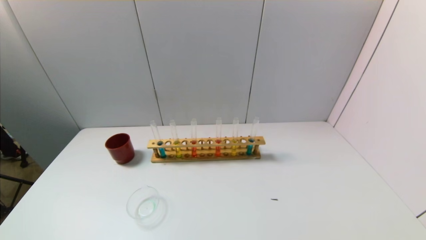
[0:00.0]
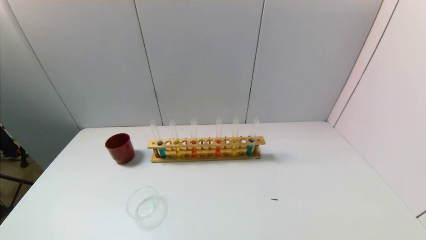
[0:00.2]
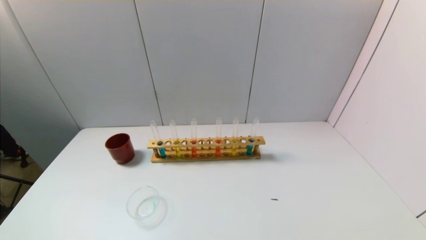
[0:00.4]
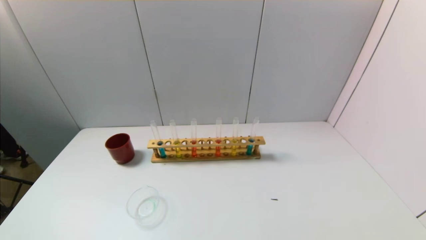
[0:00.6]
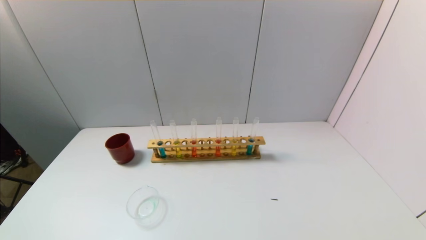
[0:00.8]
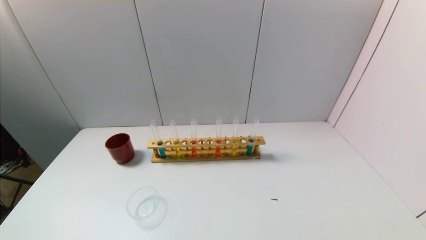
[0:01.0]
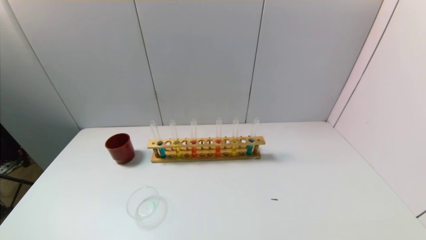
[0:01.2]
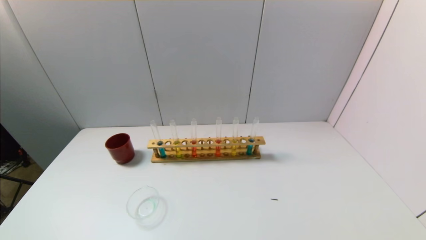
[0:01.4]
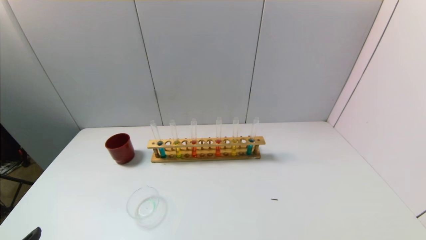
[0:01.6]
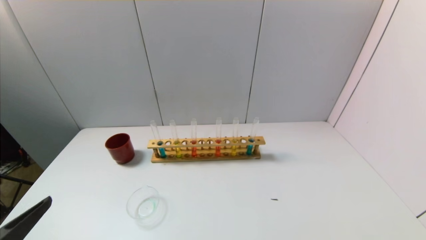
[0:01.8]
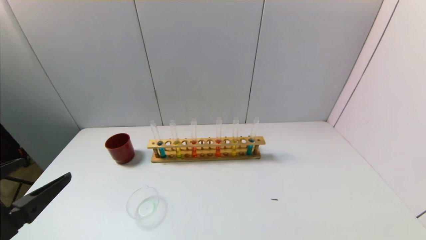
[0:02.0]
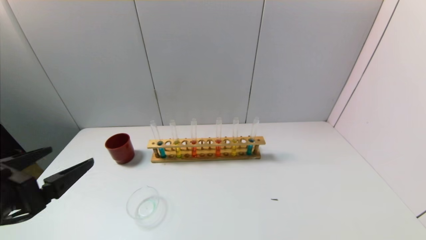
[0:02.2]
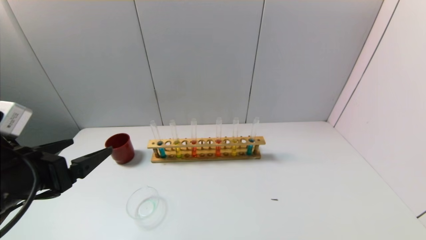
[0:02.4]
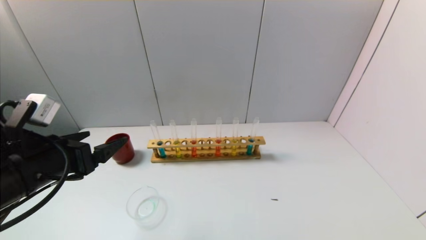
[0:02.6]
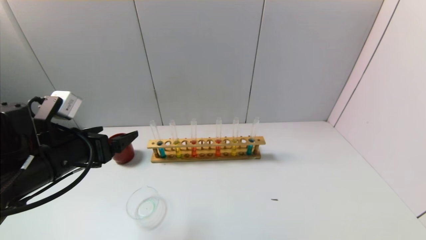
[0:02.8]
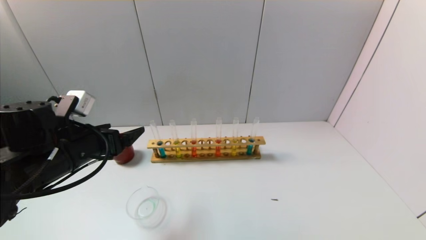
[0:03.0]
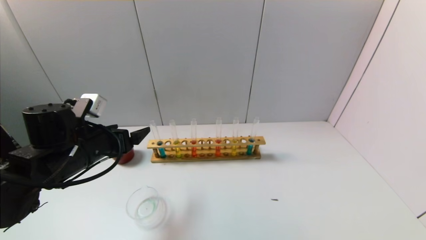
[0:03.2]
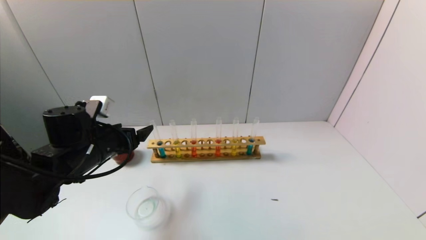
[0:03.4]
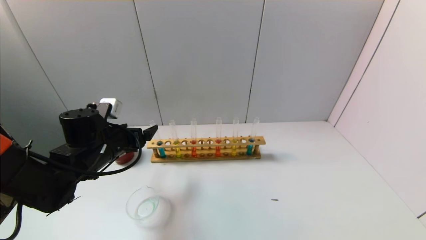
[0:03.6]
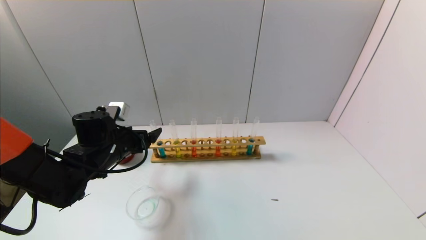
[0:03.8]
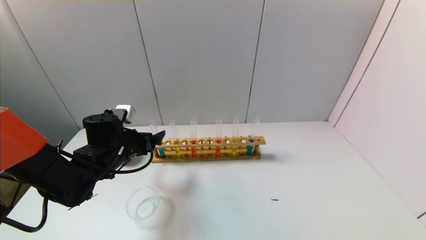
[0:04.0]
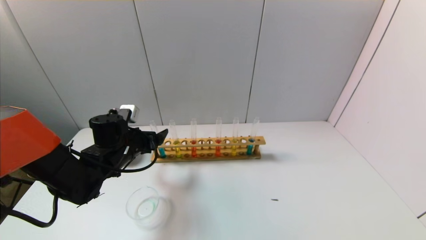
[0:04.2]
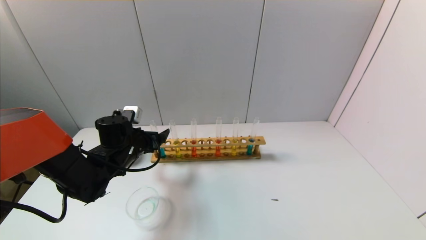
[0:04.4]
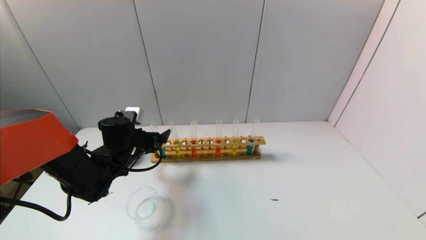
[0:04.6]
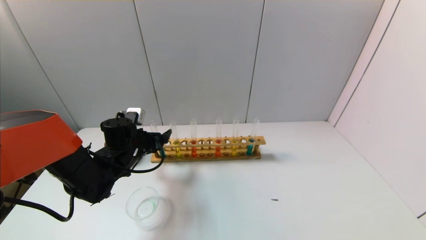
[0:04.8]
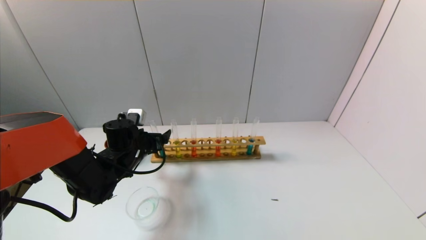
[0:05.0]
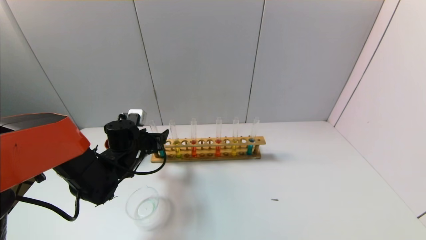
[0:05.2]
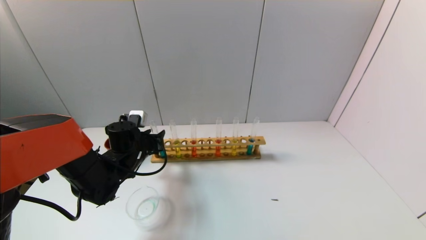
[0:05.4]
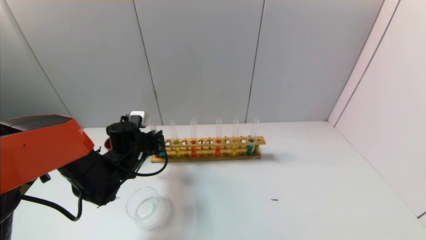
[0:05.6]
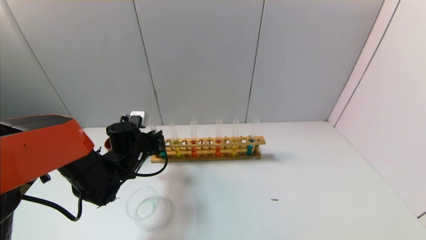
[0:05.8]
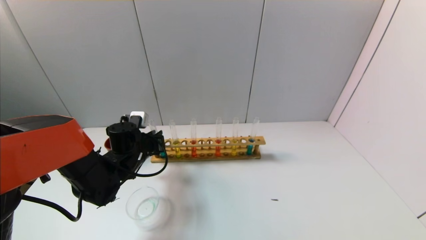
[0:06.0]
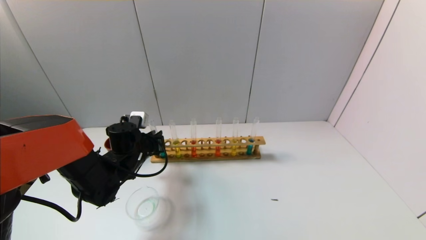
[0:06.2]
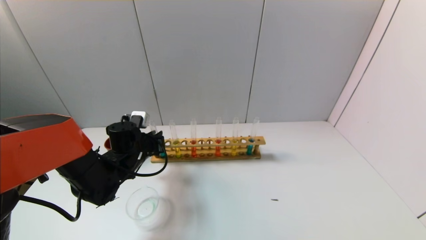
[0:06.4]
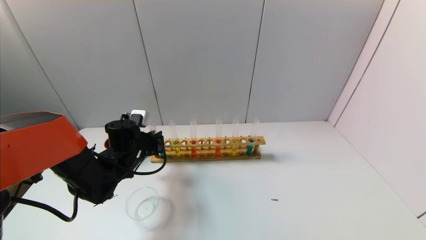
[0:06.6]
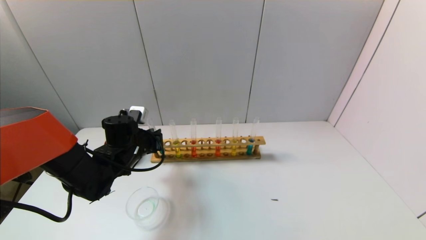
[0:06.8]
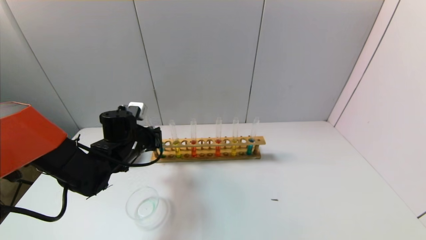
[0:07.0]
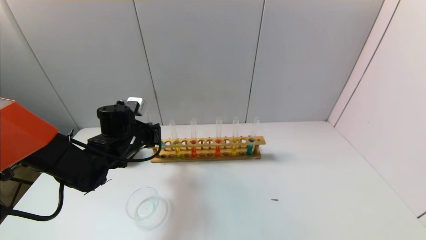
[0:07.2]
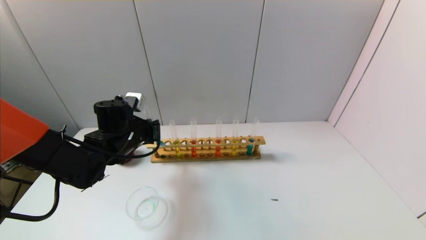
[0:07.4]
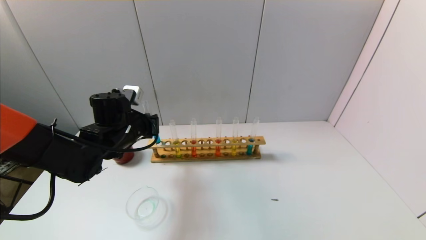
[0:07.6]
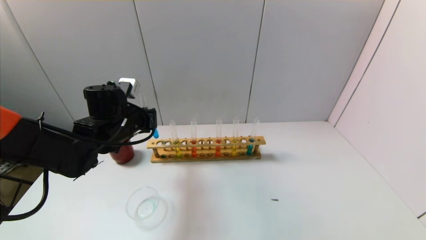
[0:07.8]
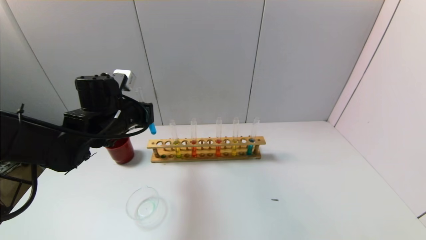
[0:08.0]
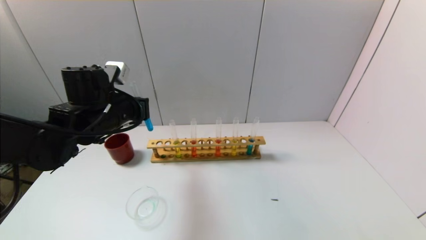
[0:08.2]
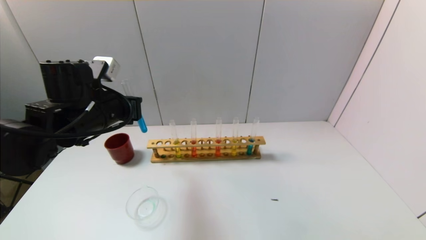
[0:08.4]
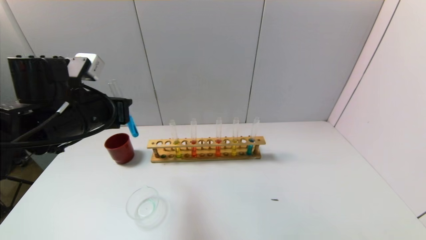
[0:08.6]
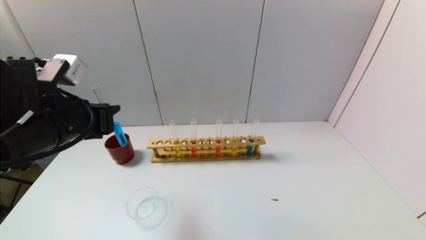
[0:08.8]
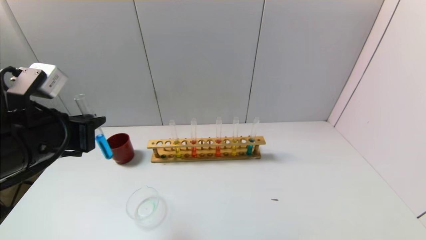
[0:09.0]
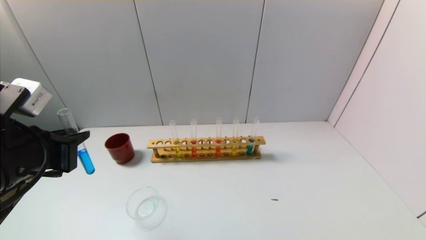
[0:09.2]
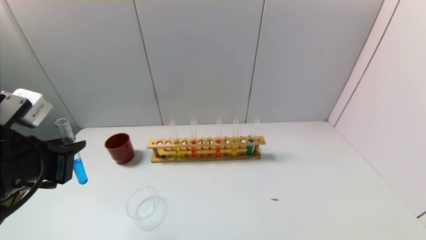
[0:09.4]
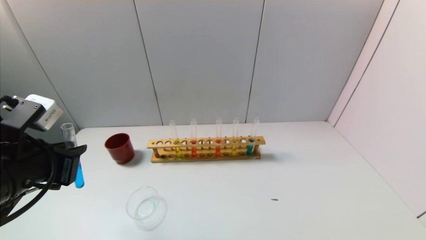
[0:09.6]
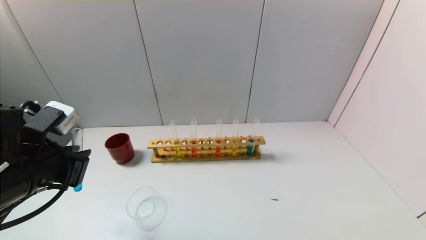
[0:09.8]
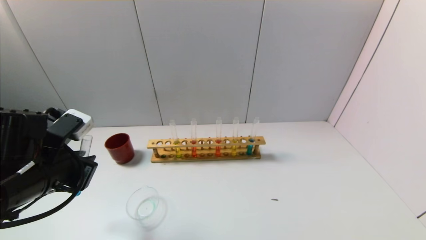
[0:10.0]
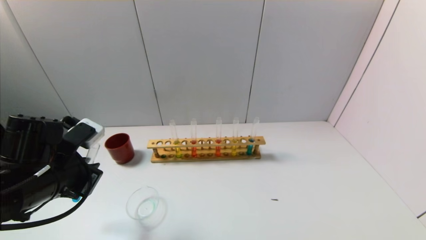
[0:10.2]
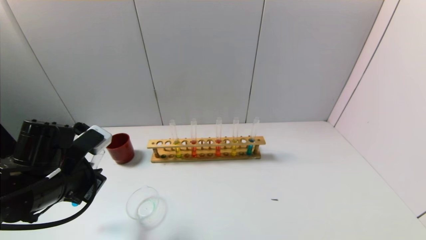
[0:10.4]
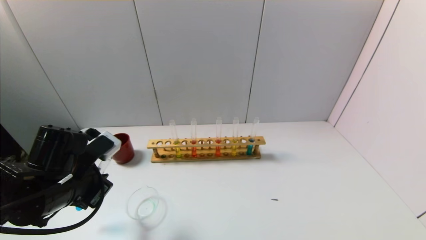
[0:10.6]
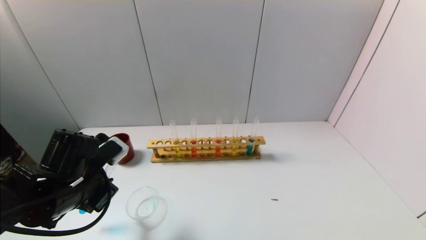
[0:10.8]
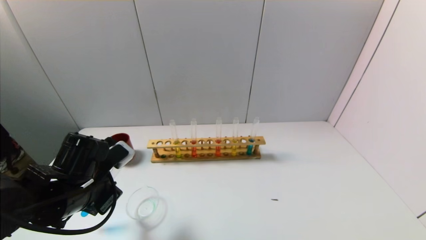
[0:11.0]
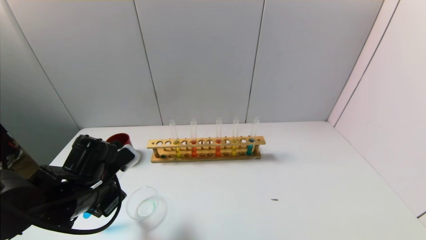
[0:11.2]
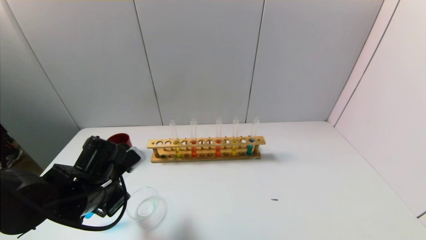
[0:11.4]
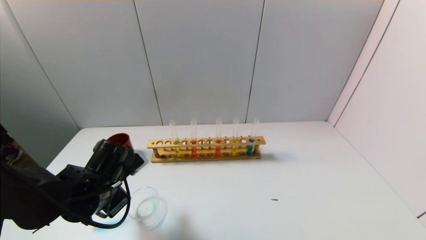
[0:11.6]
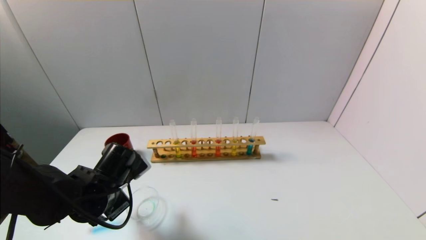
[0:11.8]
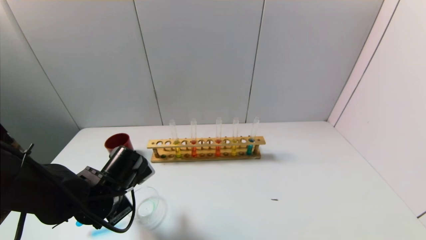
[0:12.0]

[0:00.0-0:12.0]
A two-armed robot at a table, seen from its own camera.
Task of the whole recording: pick up the test tube with yellow pigment and the test tube with blue pigment by grippers and pour them into the beaker.
Step, 0:00.0 to 0:05.6: Grasp the blue reagent with the left gripper.
0:01.6 to 0:03.0: The left gripper heads forward, covering about 25 cm.
0:03.0 to 0:04.4: The left gripper is displaced forward and downward by about 15 cm.
0:04.4 to 0:06.0: The left gripper closes up.
0:06.0 to 0:07.6: The left gripper is displaced upward by roughly 10 cm.
0:07.6 to 0:09.0: The left gripper travels backward and upward by approximately 20 cm.
0:09.0 to 0:10.4: The left gripper is displaced downward by approximately 10 cm.
0:10.4 to 0:12.0: The left gripper shifts roughly 10 cm downward and to the right.

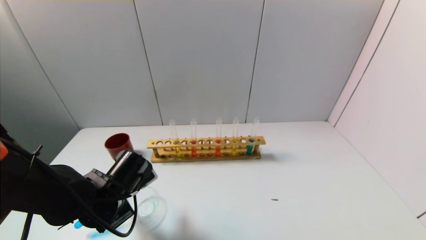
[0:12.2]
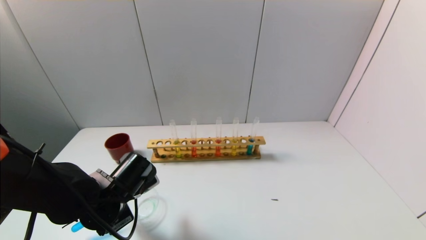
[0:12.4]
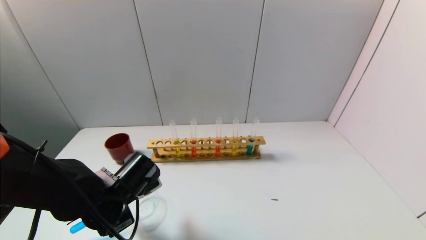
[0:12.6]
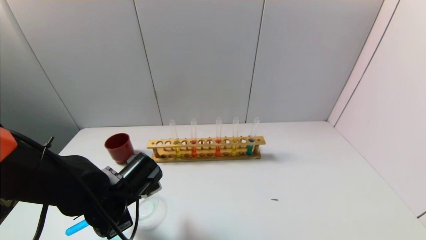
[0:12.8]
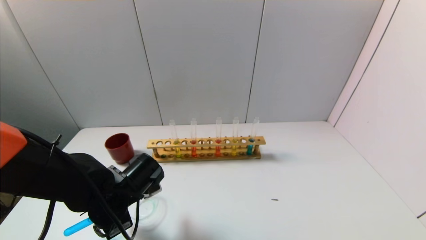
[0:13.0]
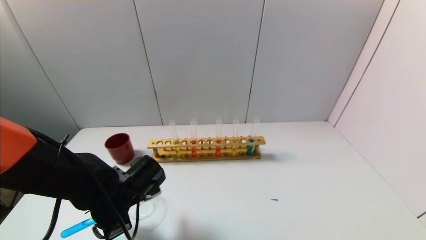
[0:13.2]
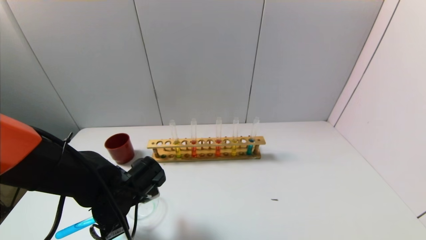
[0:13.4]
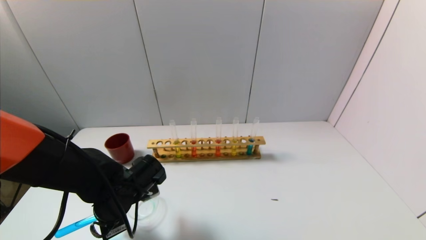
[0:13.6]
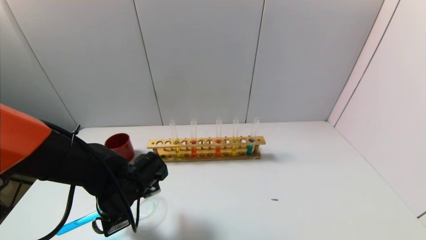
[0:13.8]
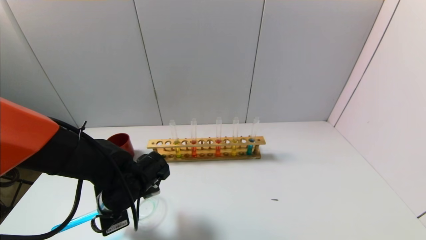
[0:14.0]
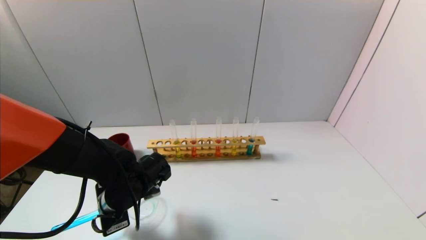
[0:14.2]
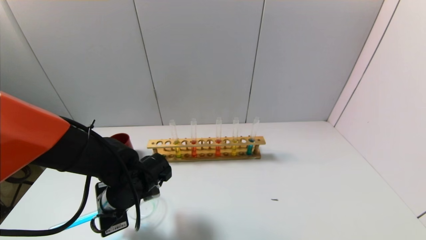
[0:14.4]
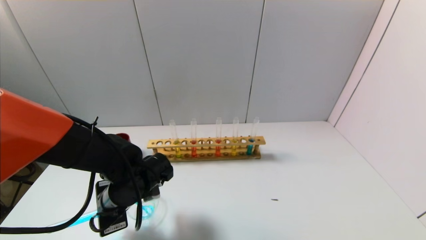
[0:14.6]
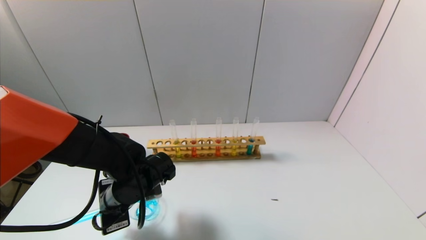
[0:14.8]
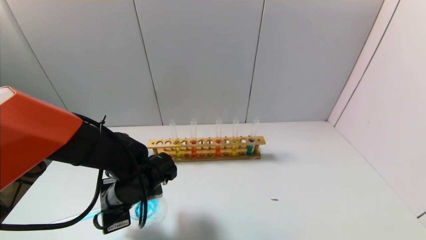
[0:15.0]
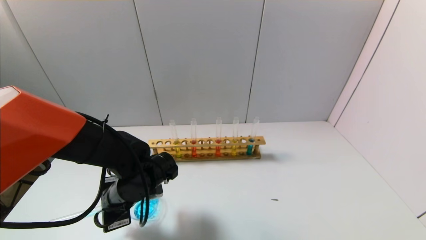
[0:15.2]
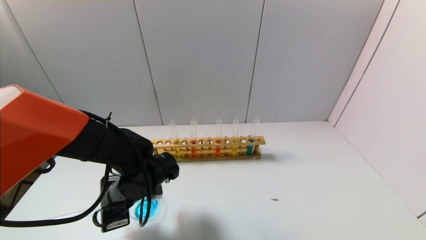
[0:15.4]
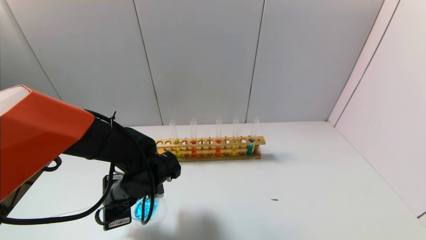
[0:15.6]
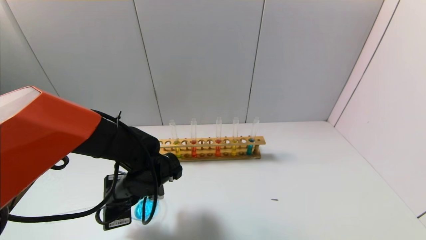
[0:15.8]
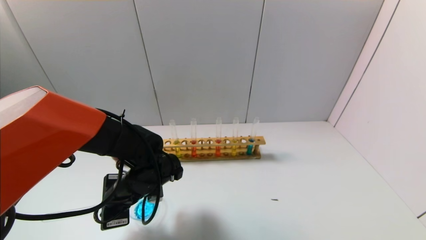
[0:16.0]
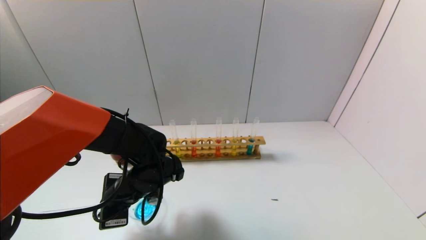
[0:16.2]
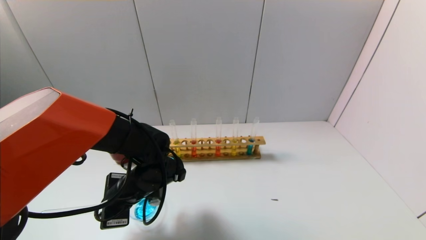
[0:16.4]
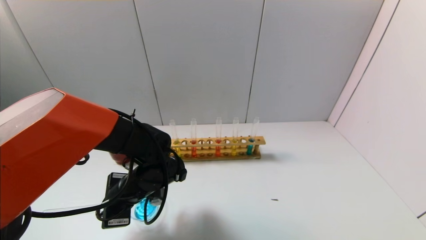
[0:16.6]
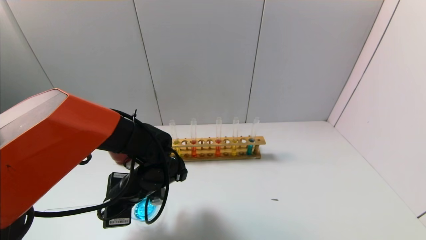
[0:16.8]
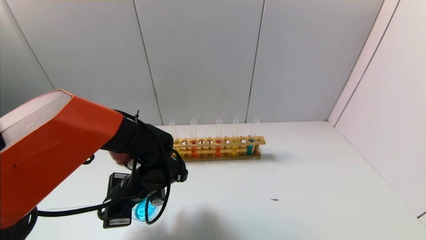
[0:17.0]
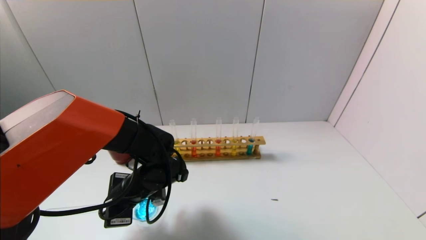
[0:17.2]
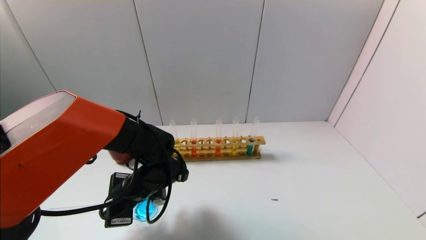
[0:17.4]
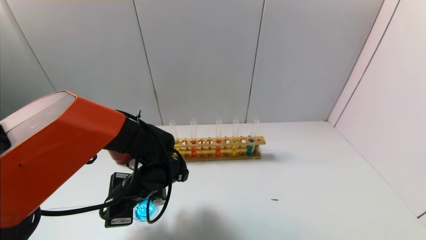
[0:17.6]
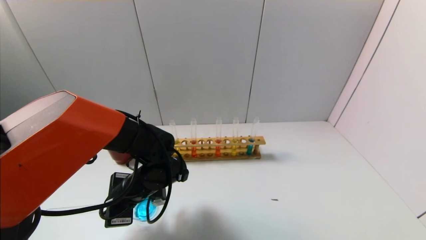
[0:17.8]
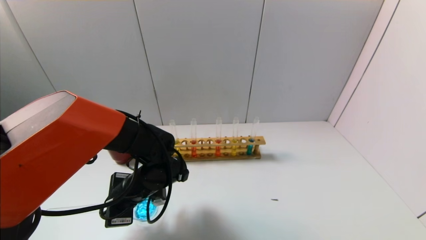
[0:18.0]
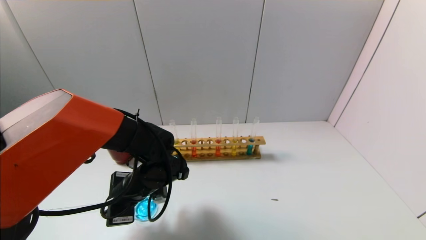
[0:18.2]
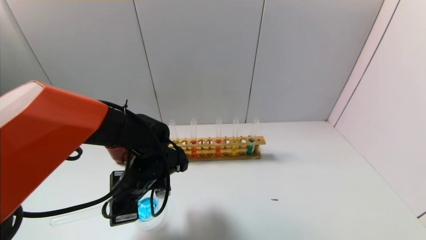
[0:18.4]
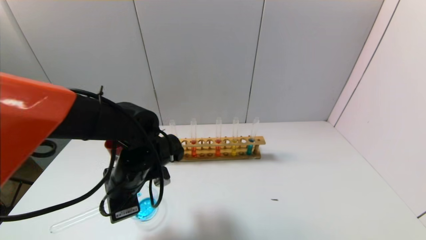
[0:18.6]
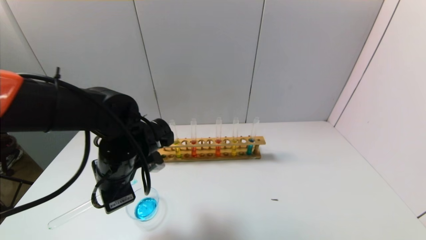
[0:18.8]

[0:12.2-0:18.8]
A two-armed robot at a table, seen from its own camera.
Task of the whole recording: pick up the test tube with yellow pigment and the test tube with blue pigment by grippers and pour them into the beaker.
Step, 0:12.2 to 0:18.4: Pour the blue reagent into the graduated cylinder with the left gripper.
0:13.8 to 0:15.4: The grippers stay close to where they were, moving slightly.
0:15.4 to 0:17.2: There are only small adjustments of the grippers.
0:17.2 to 0:18.8: The left gripper moves upward, approximately 10 cm.
